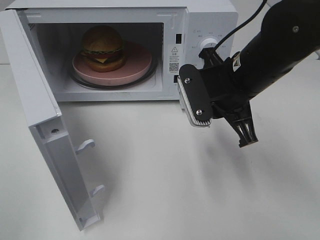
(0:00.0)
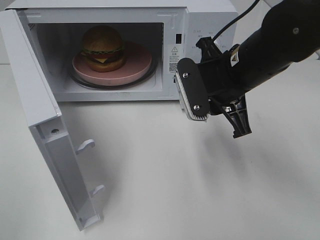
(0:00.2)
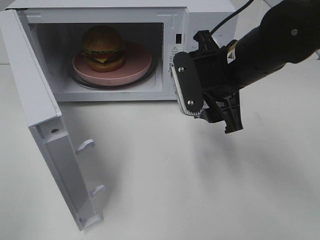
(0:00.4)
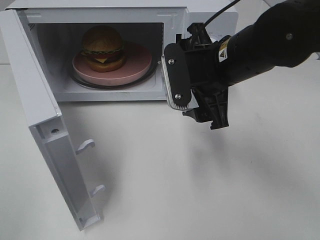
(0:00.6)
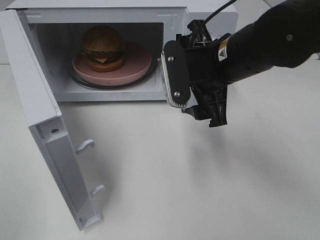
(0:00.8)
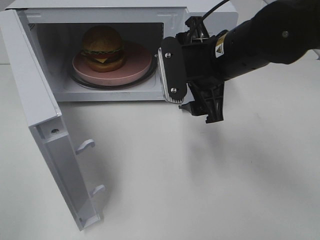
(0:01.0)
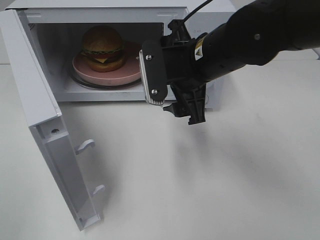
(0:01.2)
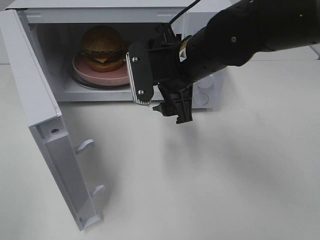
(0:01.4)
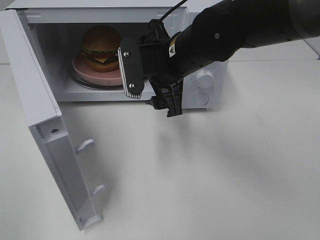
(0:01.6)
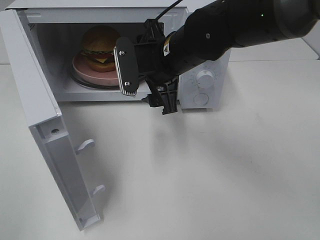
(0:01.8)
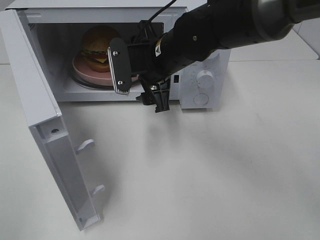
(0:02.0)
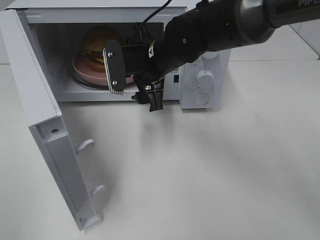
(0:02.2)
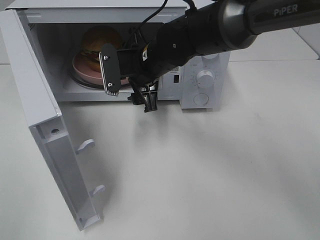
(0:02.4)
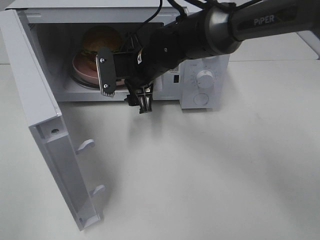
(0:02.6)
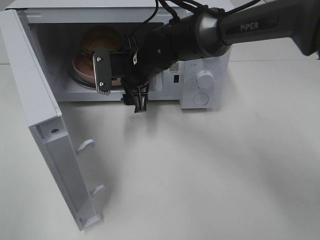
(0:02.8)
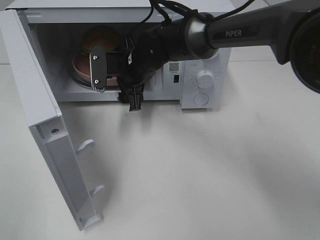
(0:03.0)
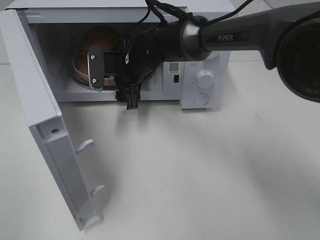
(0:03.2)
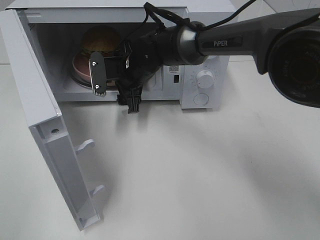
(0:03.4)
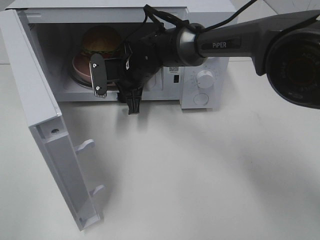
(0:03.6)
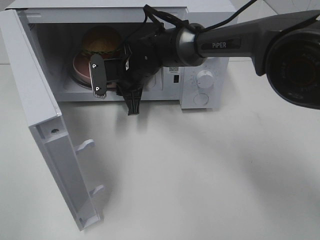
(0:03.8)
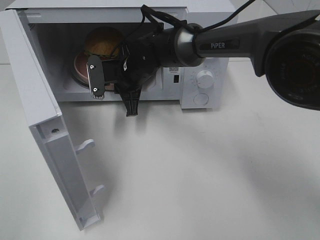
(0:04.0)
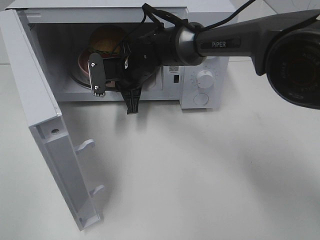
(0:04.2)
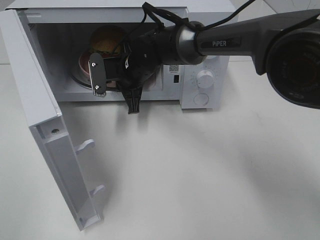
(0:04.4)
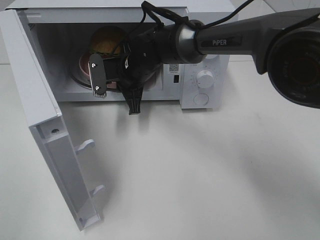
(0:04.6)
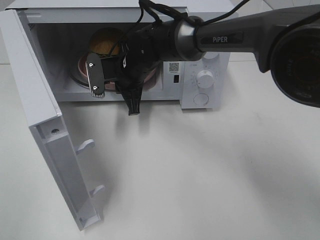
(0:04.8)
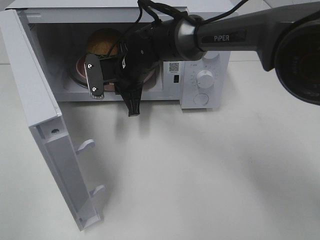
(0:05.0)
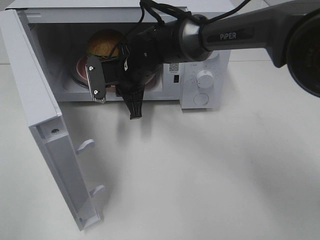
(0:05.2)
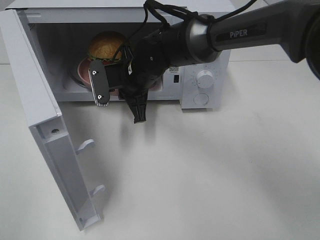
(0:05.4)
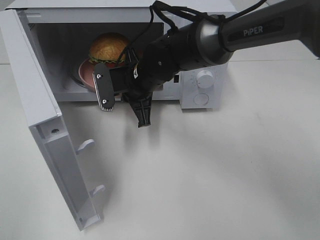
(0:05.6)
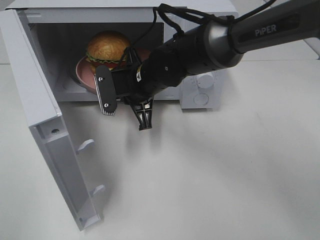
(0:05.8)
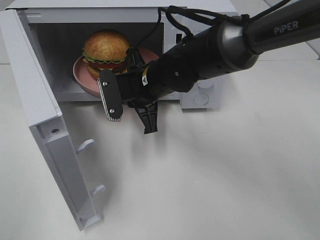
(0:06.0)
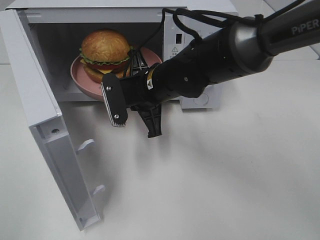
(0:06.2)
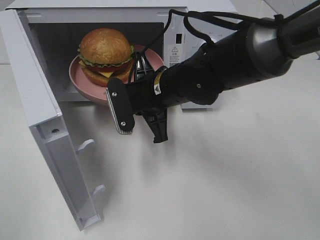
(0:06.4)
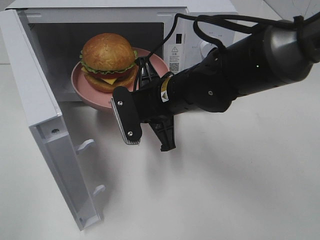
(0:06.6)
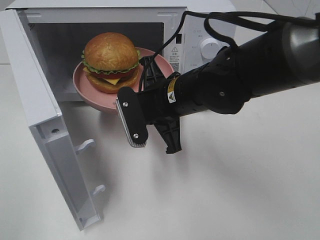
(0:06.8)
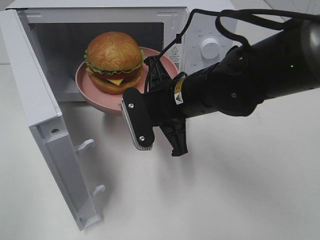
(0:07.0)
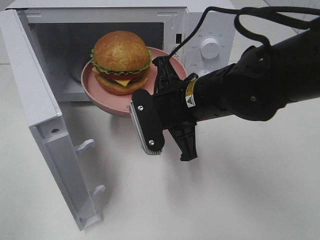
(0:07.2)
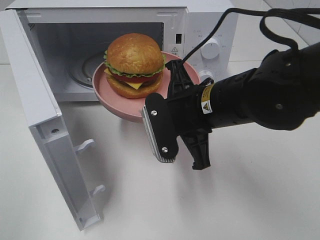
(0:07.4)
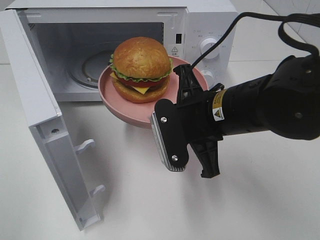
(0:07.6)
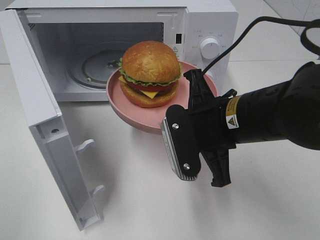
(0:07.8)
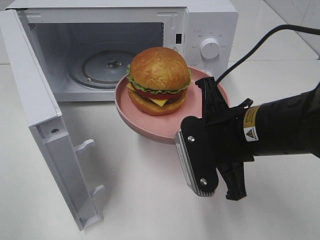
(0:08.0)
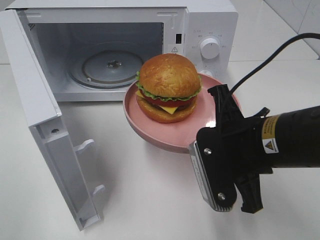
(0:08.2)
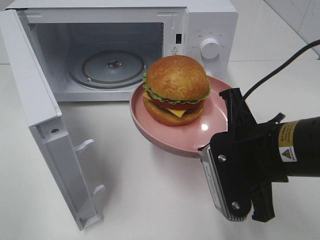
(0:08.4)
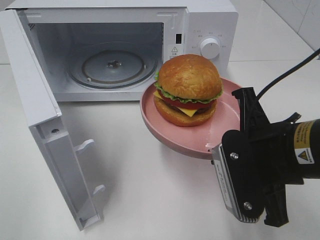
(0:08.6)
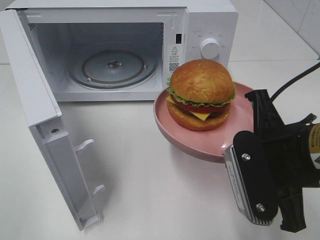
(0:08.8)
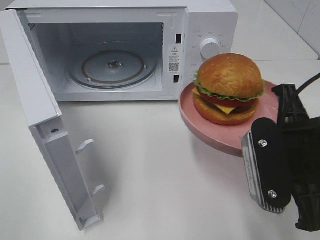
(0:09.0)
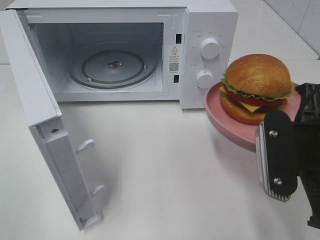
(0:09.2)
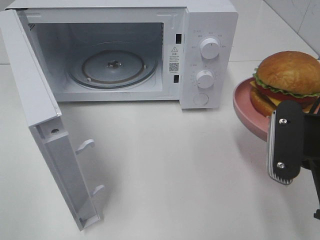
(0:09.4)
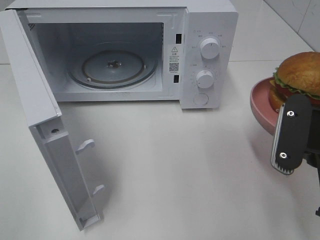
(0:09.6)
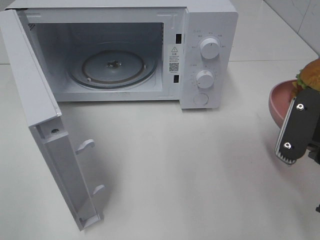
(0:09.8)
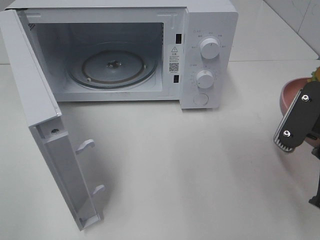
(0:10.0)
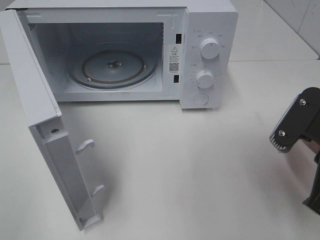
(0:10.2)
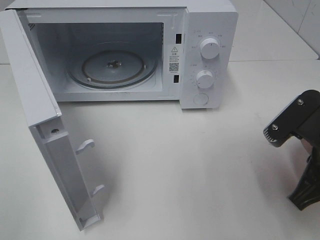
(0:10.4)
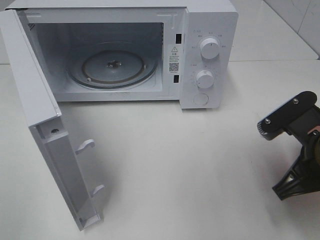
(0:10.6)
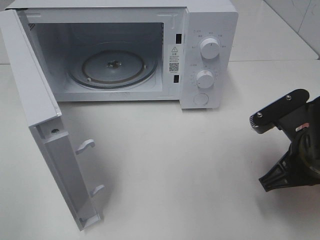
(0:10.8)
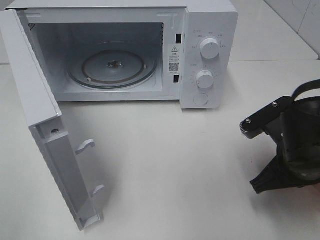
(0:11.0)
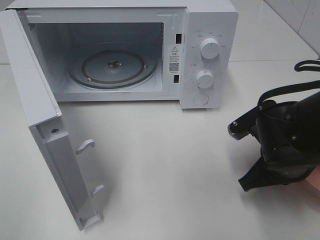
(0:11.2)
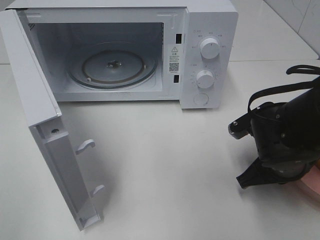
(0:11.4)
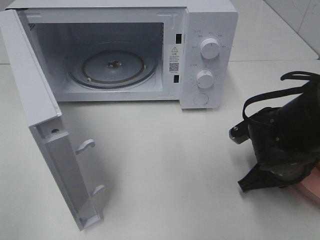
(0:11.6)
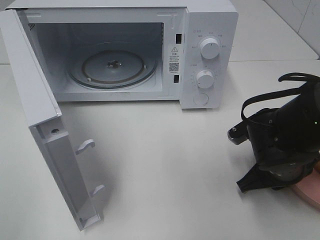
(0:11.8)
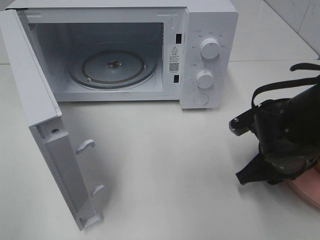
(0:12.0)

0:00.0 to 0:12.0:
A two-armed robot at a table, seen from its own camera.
Task of the whole recording: Heat the burger.
Step, 0:00.0 to 0:04.2: Right hand: grab the plate with the hamburger.
0:00.0 to 0:01.6: The right gripper goes approximately 10 cm to the left, and opens its fingers.
0:01.6 to 0:03.0: The right gripper heads forward, to the left and downward, covering some 15 cm.
0:03.0 to 0:04.4: The right gripper closes its fingers.
0:04.4 to 0:06.0: The right gripper shifts some 10 cm backward.
0:06.0 to 0:07.6: The right gripper is displaced backward and to the right by about 15 cm.
0:07.6 to 0:09.0: The right gripper moves to the right and backward, some 10 cm.
0:09.0 to 0:10.4: The right gripper shifts by some 5 cm.
0:10.4 to 0:12.0: The right gripper heads downward and forward, covering some 10 cm, and opens its fingers.

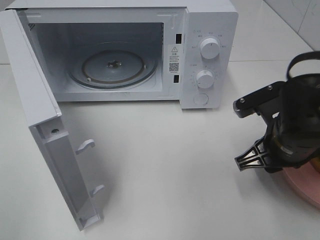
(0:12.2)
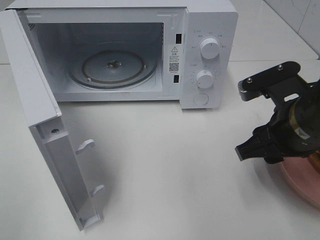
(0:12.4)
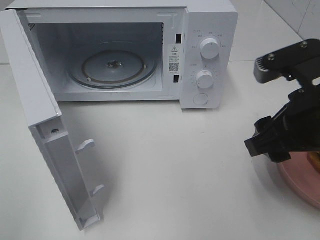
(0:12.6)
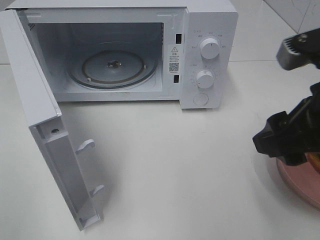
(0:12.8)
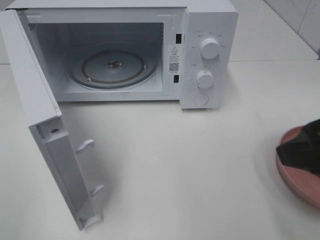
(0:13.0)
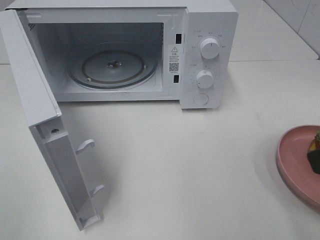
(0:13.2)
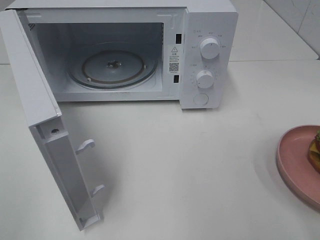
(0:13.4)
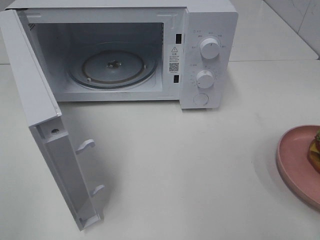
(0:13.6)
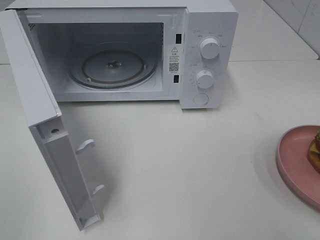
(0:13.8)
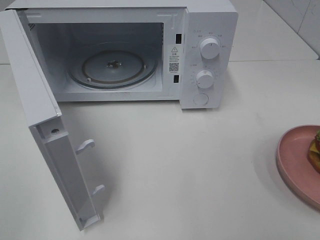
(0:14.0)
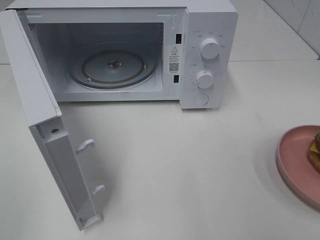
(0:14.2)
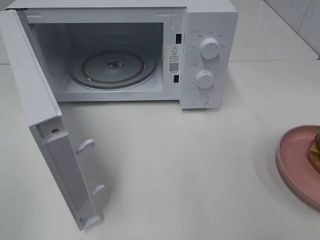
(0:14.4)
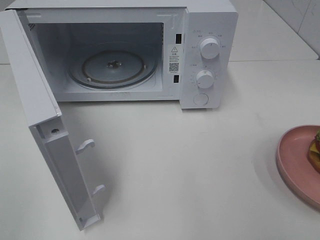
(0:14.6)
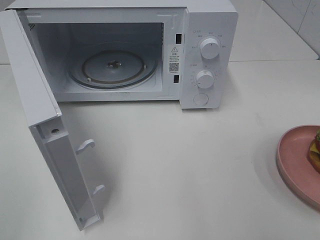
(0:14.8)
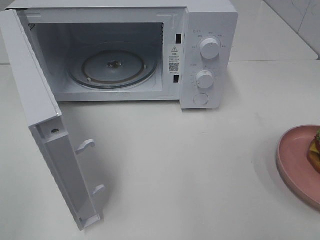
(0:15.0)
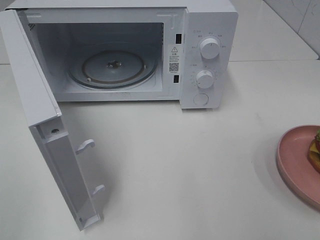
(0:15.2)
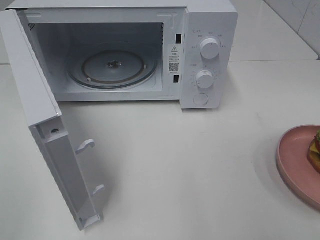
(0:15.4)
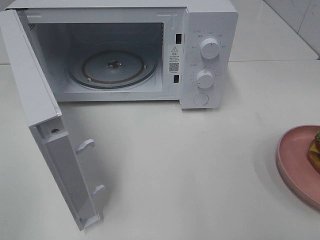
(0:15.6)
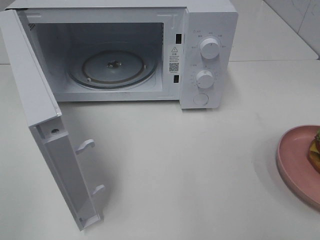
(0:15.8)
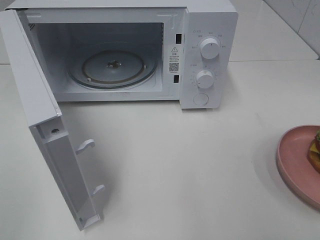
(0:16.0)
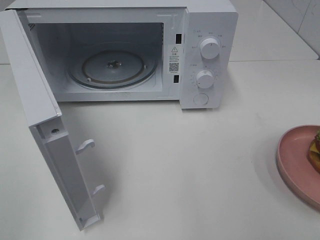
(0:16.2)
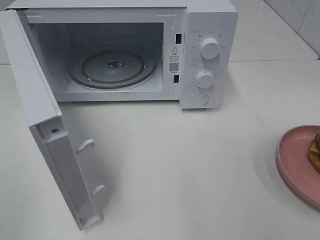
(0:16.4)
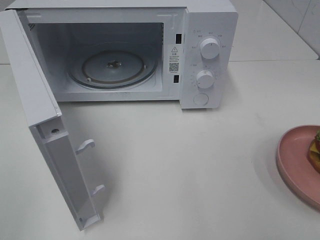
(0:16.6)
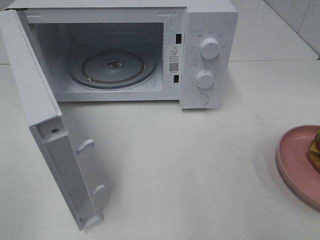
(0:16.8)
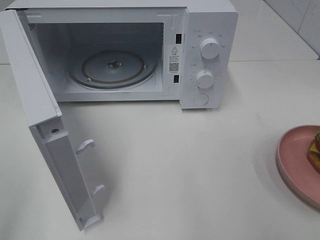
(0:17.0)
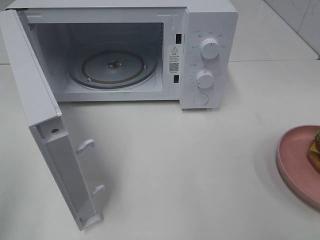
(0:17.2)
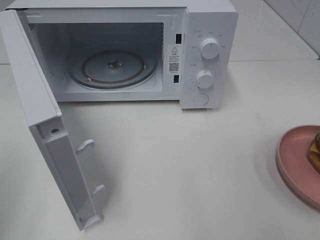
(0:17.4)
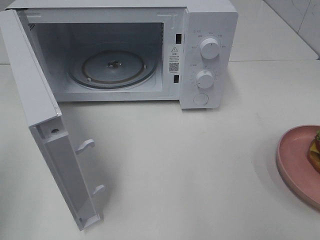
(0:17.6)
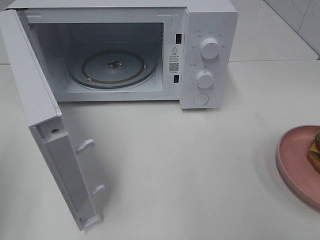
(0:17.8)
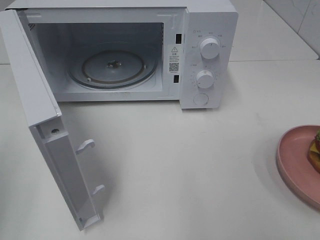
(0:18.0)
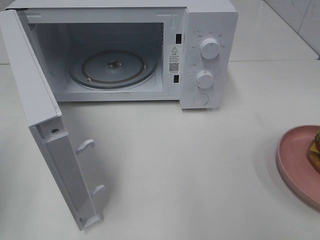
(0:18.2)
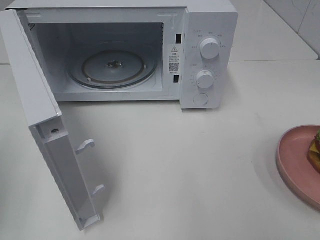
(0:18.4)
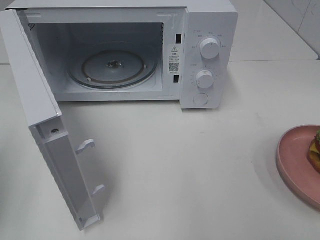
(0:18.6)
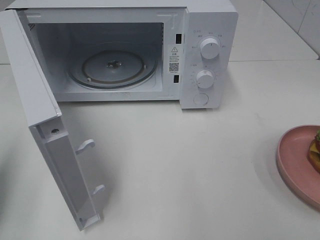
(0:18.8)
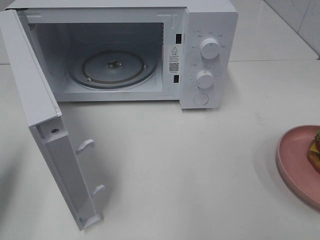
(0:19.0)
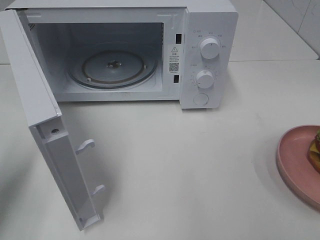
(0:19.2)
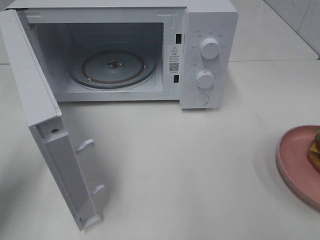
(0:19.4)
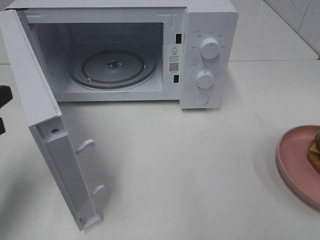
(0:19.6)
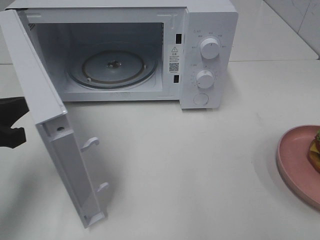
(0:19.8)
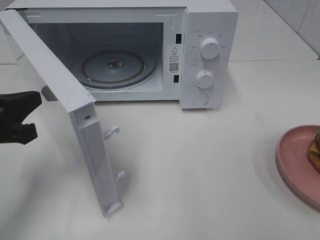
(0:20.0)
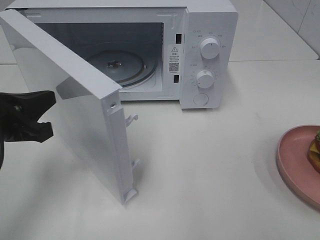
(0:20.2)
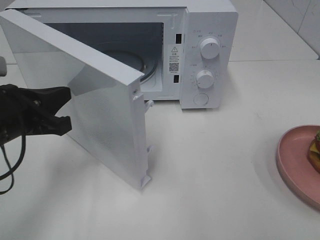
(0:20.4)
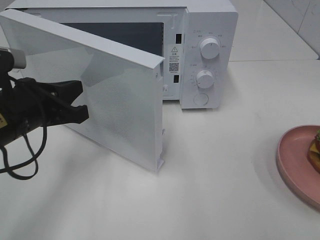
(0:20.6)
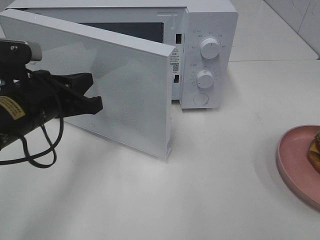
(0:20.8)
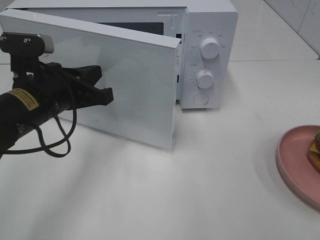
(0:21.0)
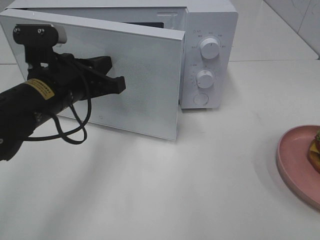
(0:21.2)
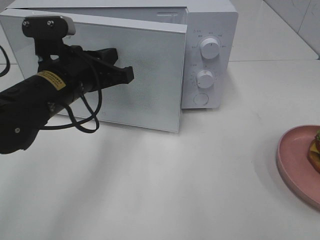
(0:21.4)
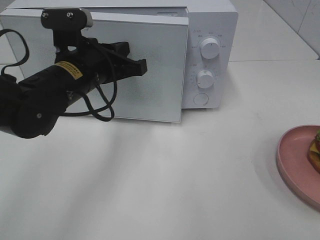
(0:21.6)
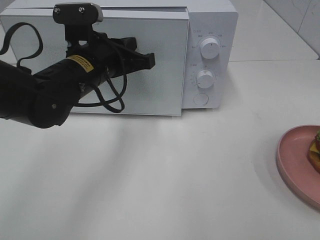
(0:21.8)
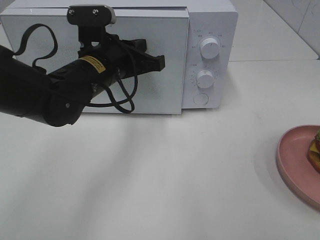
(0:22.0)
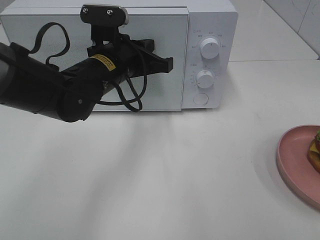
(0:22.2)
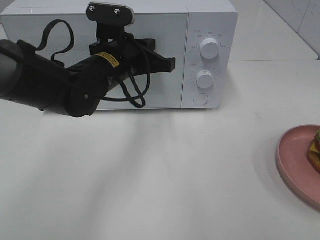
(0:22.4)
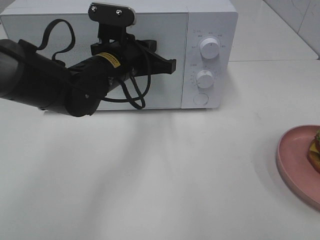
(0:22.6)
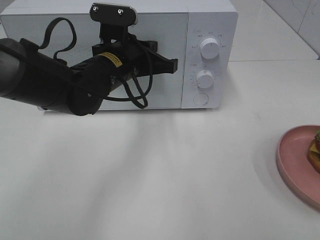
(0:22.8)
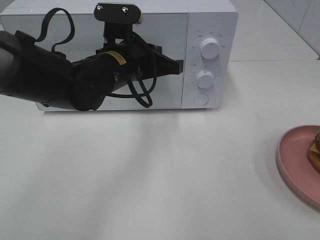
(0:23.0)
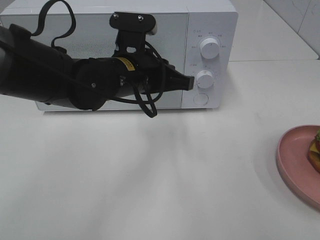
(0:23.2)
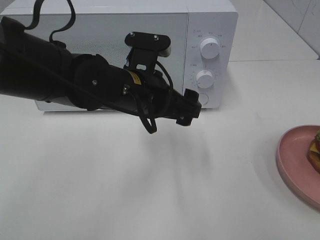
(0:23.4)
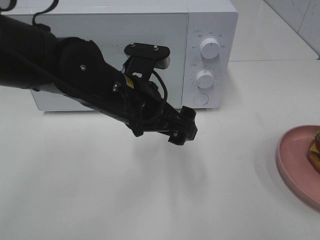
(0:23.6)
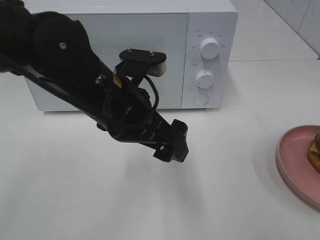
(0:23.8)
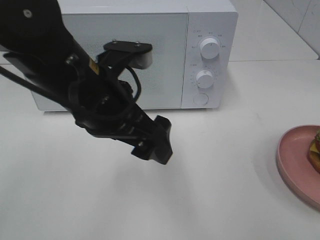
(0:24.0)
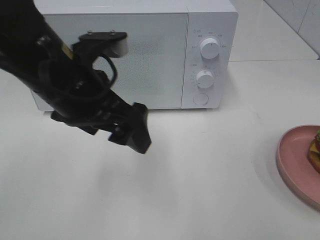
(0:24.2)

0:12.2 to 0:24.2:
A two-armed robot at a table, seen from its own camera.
Task of the whole recording: Heat the burger.
Step, 0:12.2 to 0:23.0: Left hand: close the microwave door.
0:12.2 to 0:13.8: The right gripper heads backward, upward and to the right, covering approximately 25 cm.
0:15.2 to 0:16.6: Both grippers stay put.
0:18.2 to 0:19.8: The left gripper goes approximately 15 cm to the right, forward and downward.
0:19.8 to 0:21.2: The left gripper shifts approximately 15 cm to the right and forward.
0:21.2 to 0:22.6: The left gripper moves to the right and forward, about 10 cm.
0:22.6 to 0:24.2: The left gripper travels backward and upward by some 15 cm, and opens.
